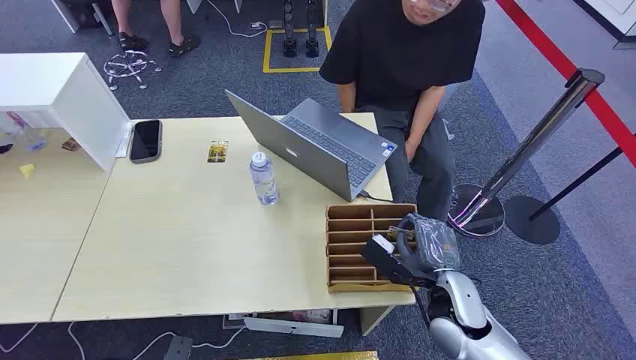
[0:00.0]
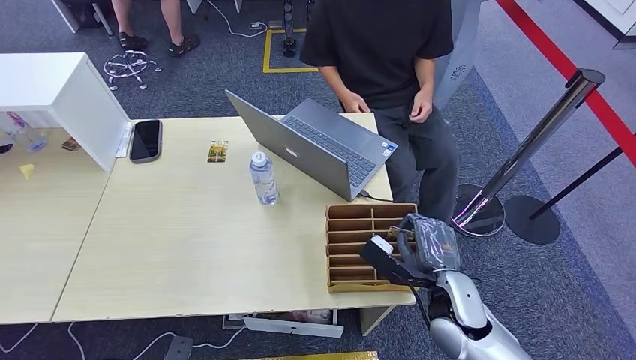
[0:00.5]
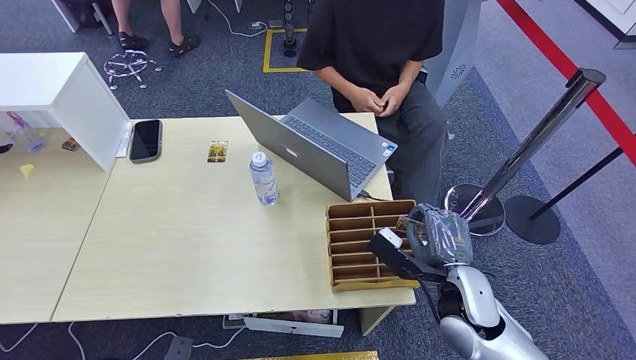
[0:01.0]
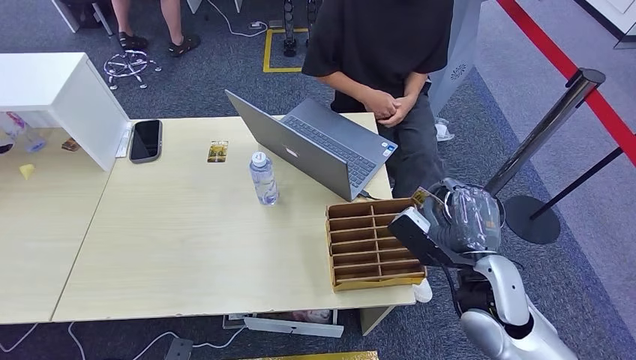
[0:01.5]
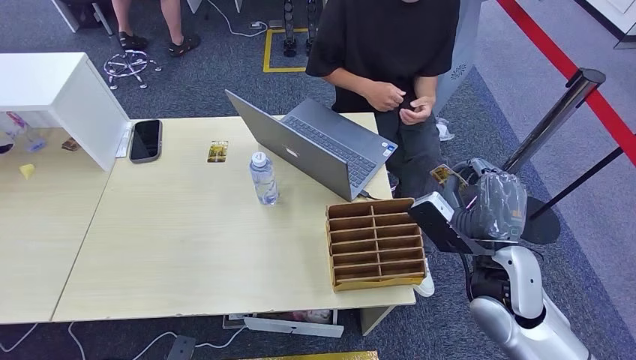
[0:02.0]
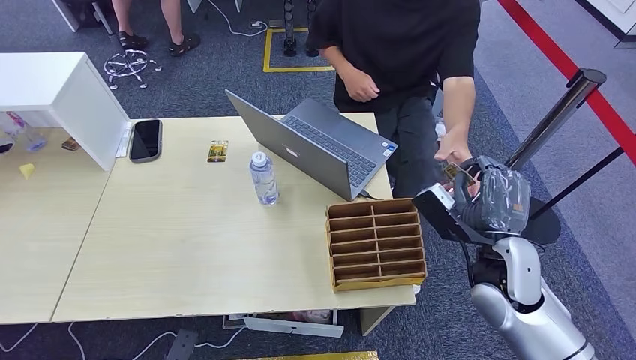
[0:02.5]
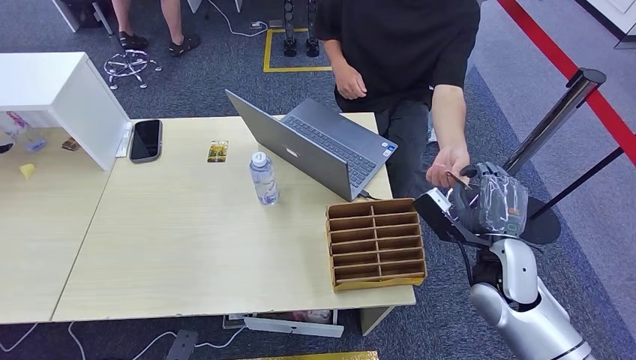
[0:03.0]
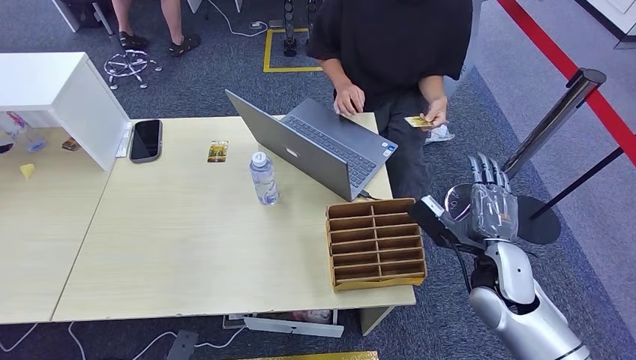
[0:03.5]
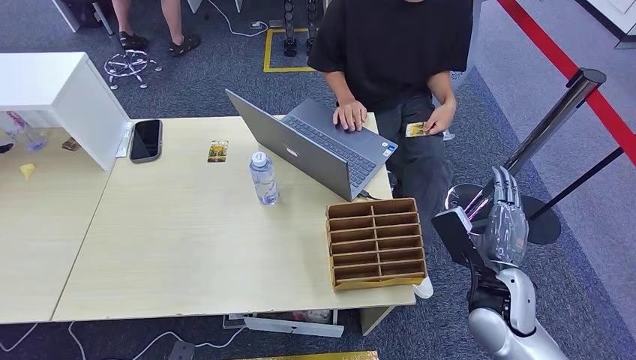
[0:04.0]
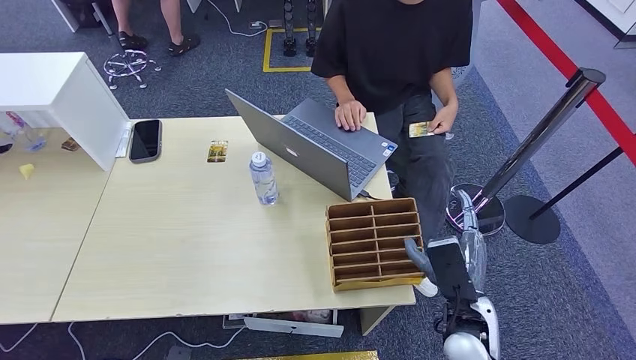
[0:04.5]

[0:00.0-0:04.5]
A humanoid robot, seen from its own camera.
Step, 0:00.0 to 0:01.0: Pick up the key card from the card box.
Step, 0:01.5 to 0:04.5: Hand the key card to the target.
0:02.0 to 0:04.5: The right hand goes roughly 10 cm downward.

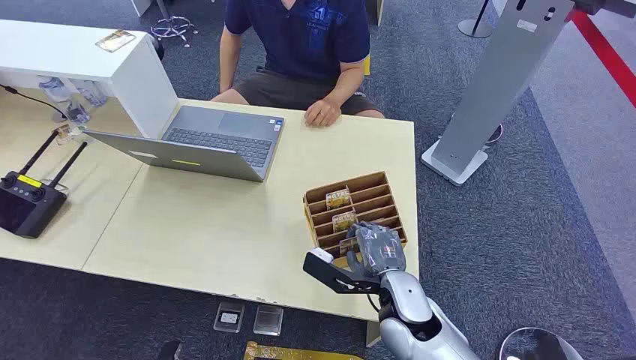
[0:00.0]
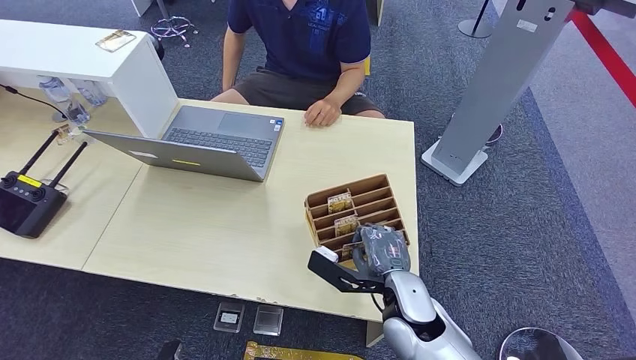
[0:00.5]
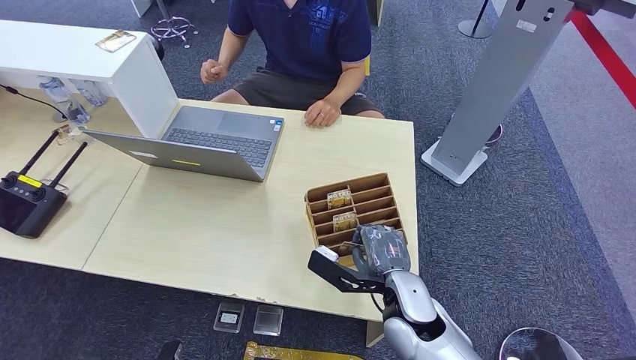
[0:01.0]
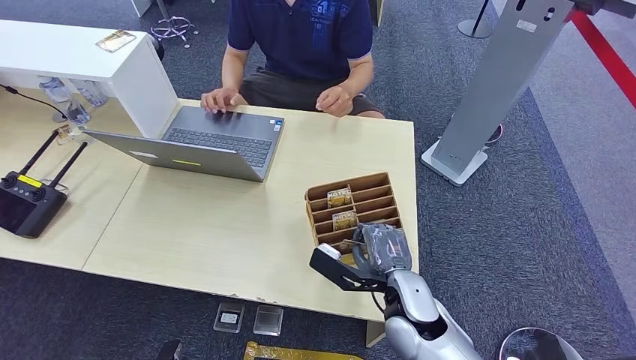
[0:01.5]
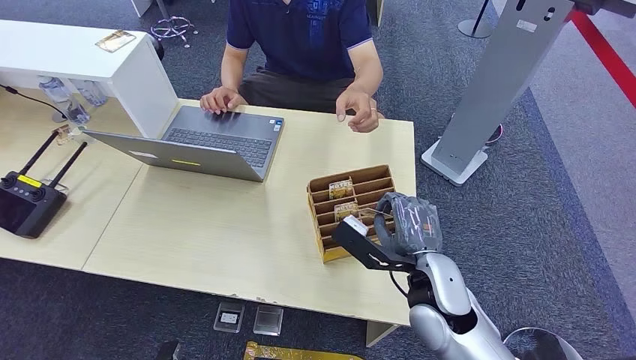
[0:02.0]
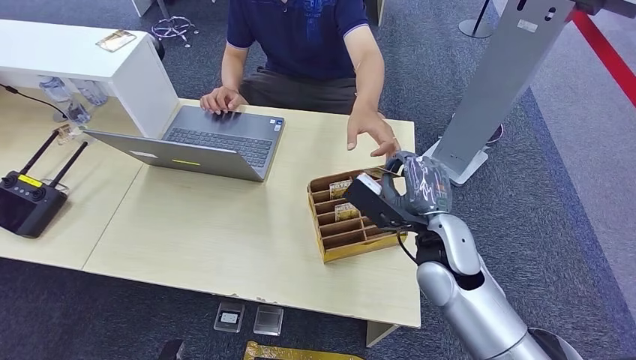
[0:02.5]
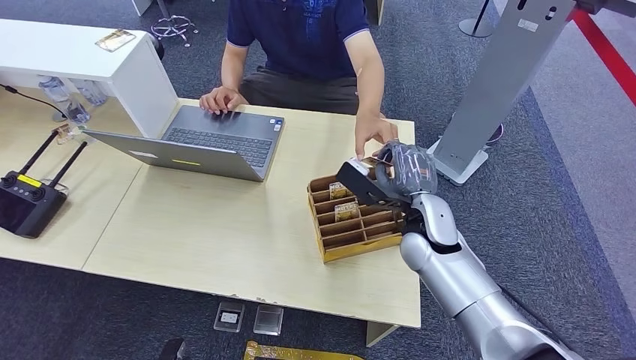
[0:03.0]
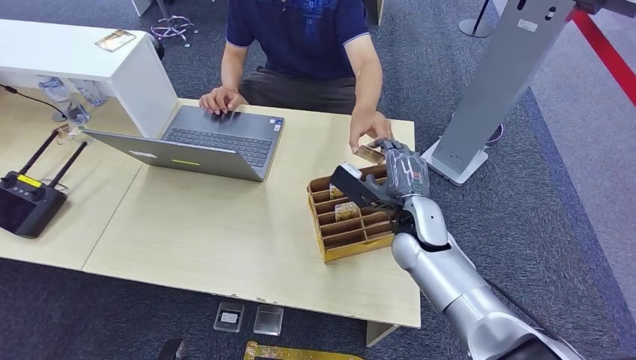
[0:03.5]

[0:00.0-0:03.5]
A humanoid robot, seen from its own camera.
Step, 0:00.0 to 0:01.5: Pick up the key card from the card box.
Step, 0:02.5 to 0:03.5: Hand the key card to the target.
0:02.0 to 0:03.5: The right hand moves forward, approximately 10 cm.
